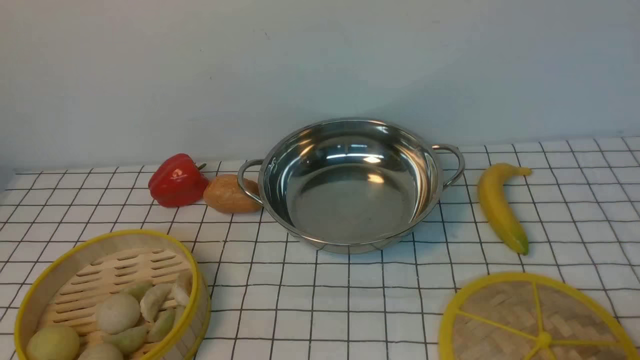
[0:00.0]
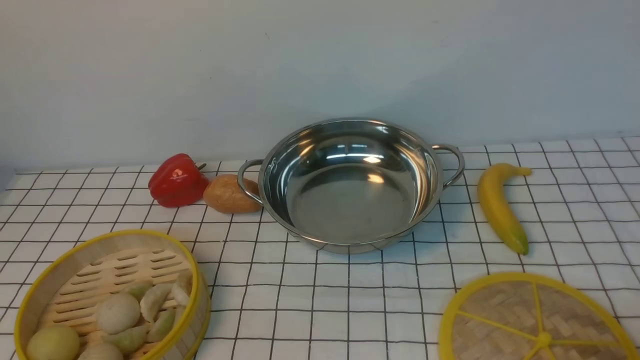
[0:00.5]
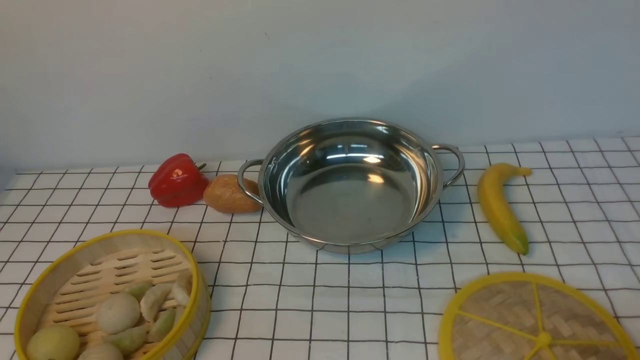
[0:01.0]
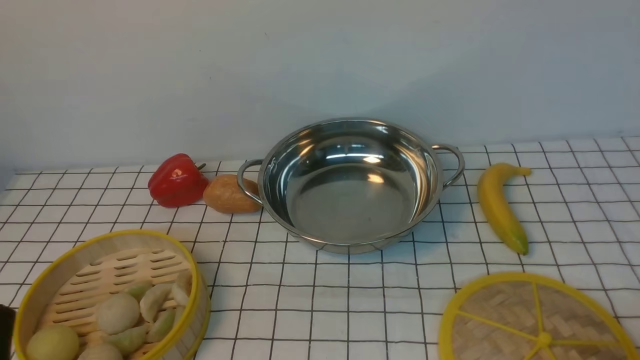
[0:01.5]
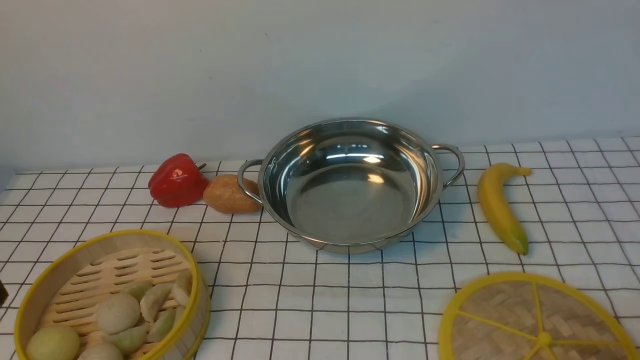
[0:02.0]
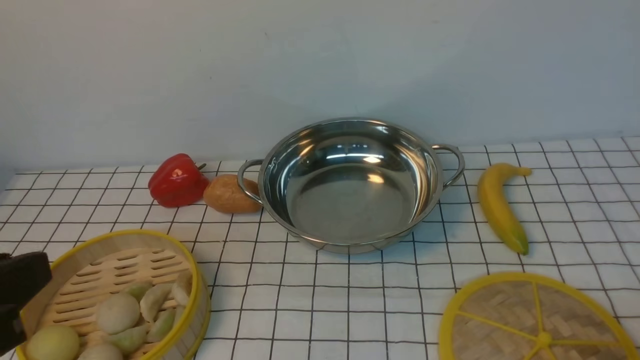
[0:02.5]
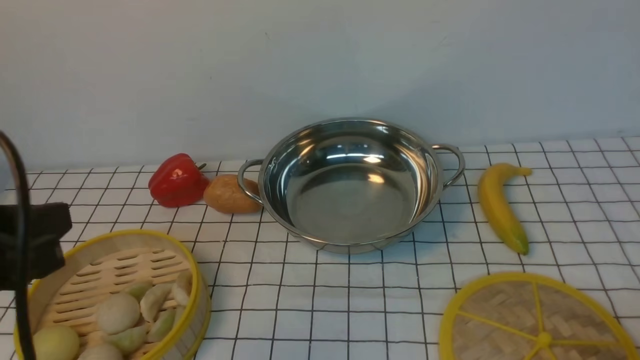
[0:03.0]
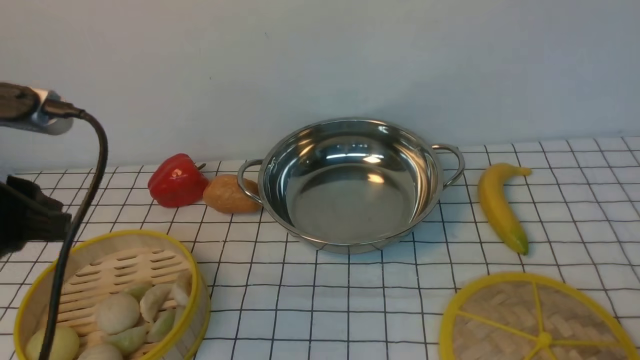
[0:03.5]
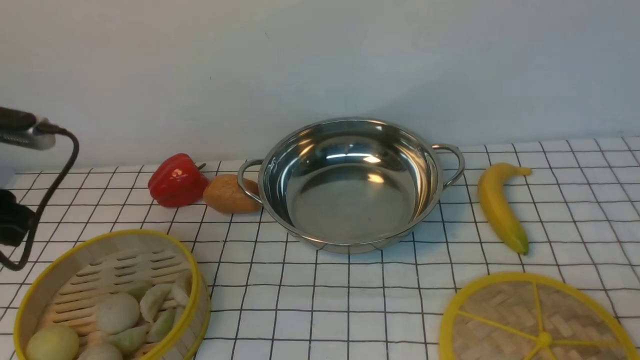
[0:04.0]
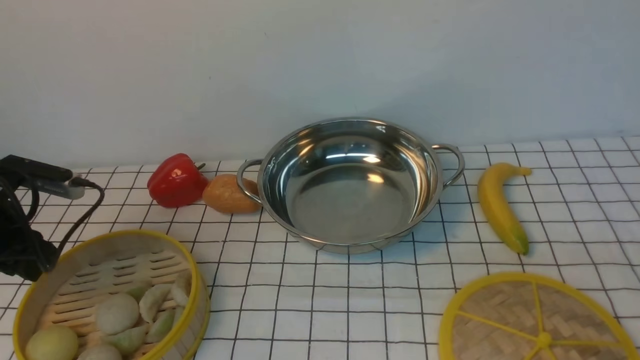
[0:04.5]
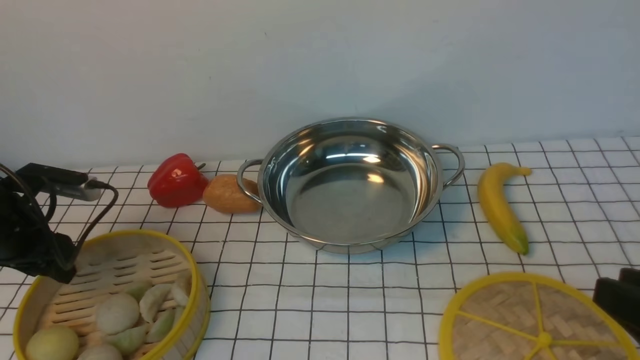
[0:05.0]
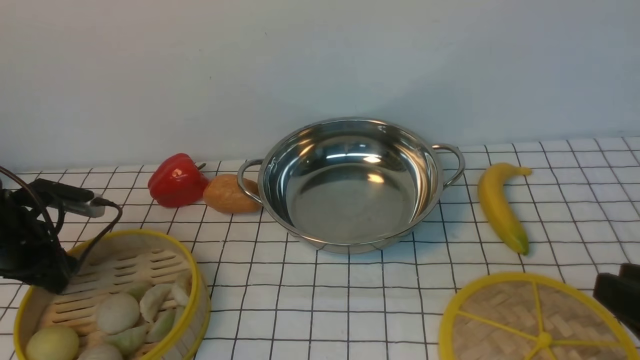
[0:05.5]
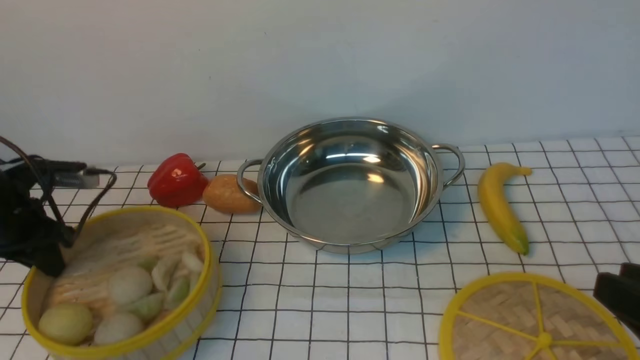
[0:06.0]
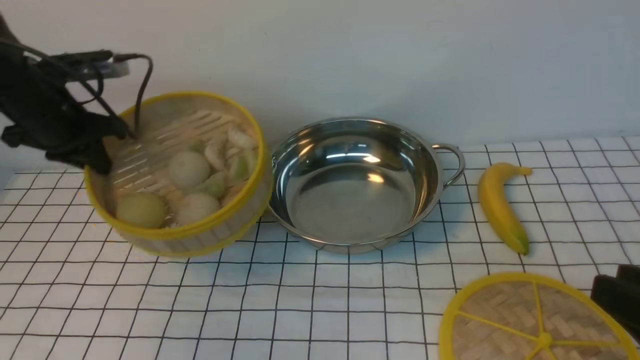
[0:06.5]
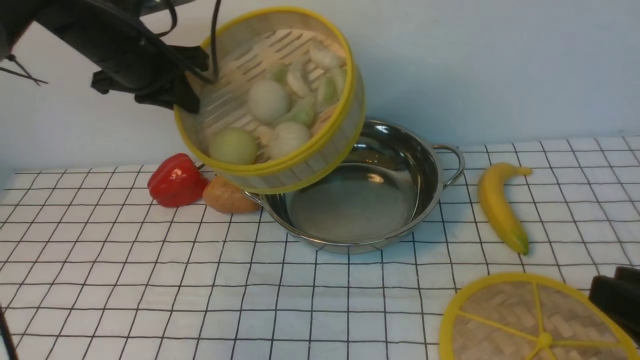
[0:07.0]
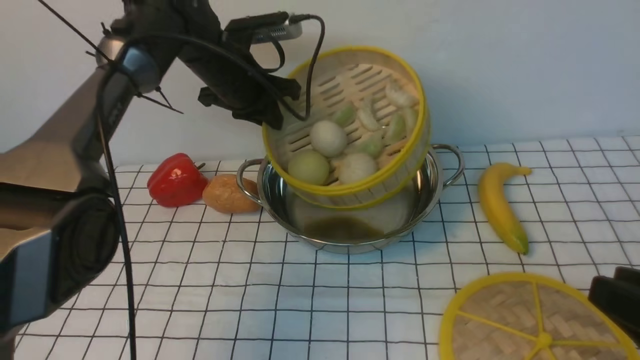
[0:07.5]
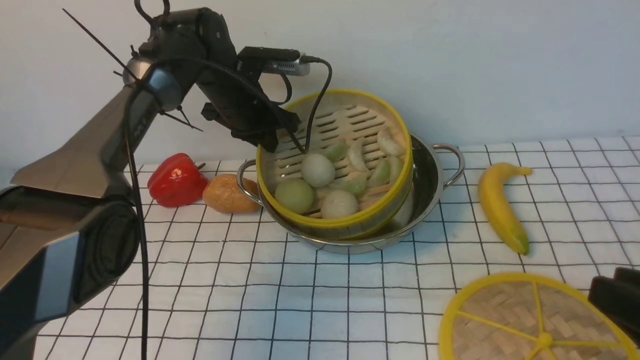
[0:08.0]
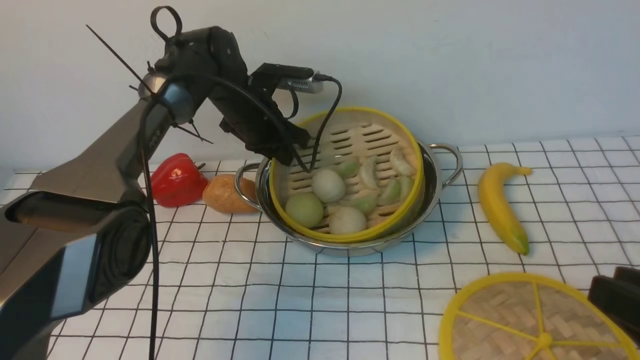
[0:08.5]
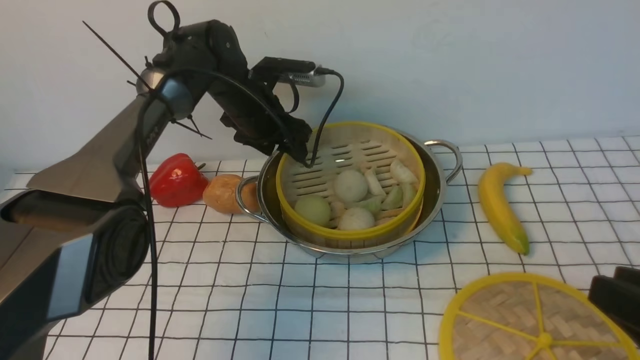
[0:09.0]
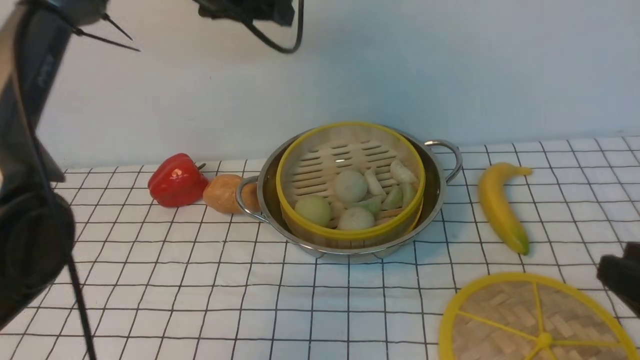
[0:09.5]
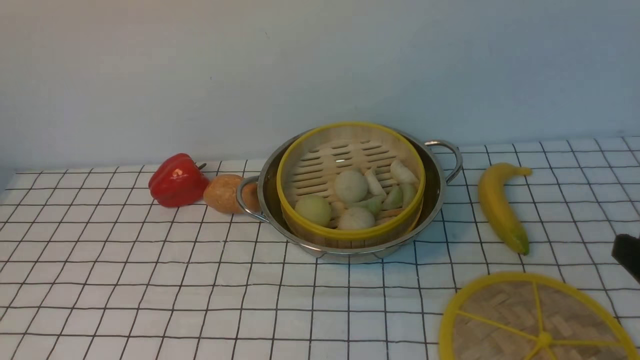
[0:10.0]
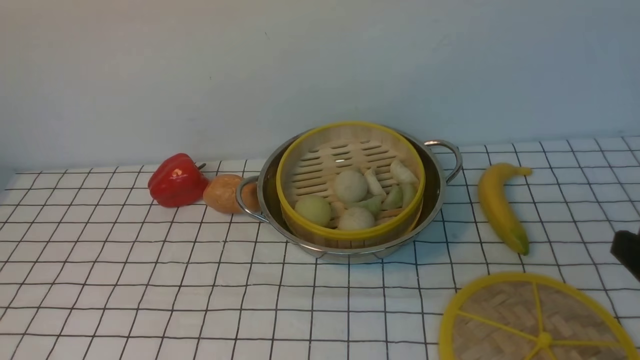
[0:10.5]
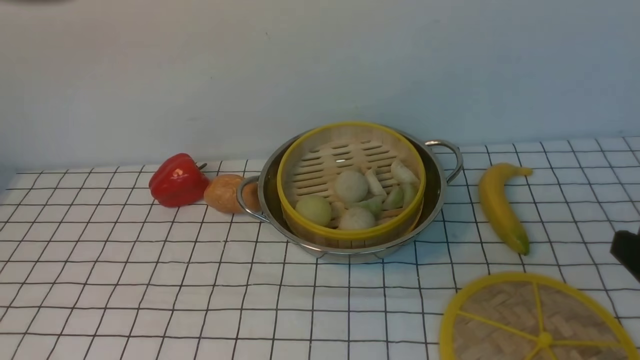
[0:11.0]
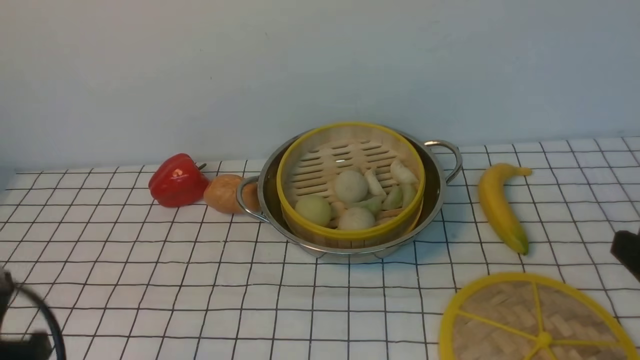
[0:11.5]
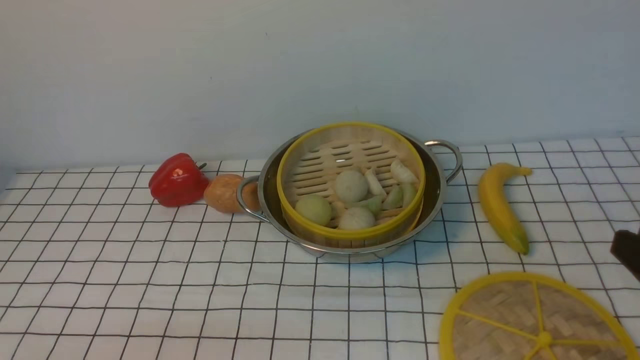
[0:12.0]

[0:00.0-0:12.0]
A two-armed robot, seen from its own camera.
Task of the whole recording: place the steamer in the pot on the white tablecloth, and put the lid on the steamer.
Step, 0:00.0 to 0:06.0: use the left arm to lift the steamer closest to it.
Step, 0:06.5 to 0:09.0: use the left arm to put the steamer into the iron steamer pot in the middle.
0:02.0 to 0:04.0: The left gripper is displaced forward and to the left by approximately 25 cm.
0:04.0 to 0:06.0: The left gripper shifts roughly 10 cm downward and forward, and closes. Meanwhile the right gripper shifts by some 5 cm.
0:06.0 to 0:08.0: The left gripper goes approximately 30 cm to the right and forward.
0:08.0 to 0:10.0: The left gripper heads upward and backward, covering about 40 cm, and opens, then closes again.

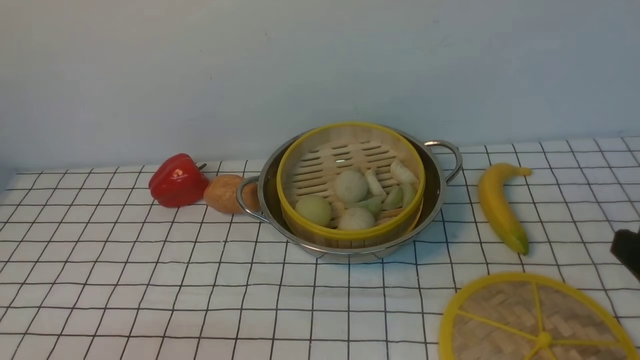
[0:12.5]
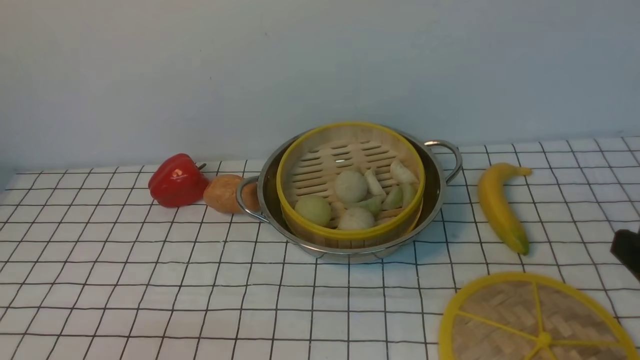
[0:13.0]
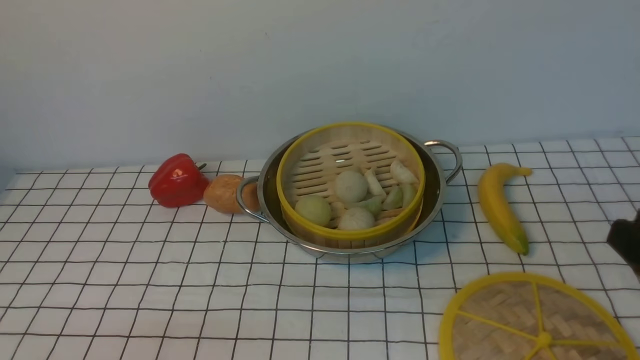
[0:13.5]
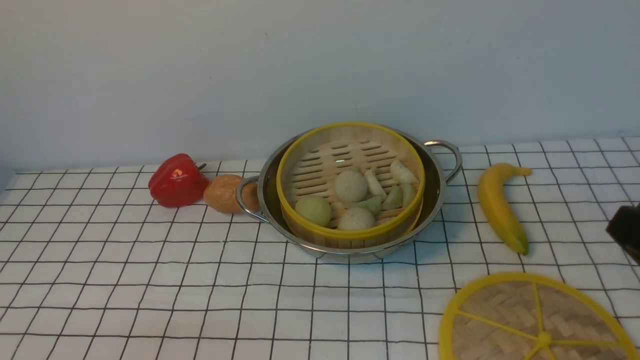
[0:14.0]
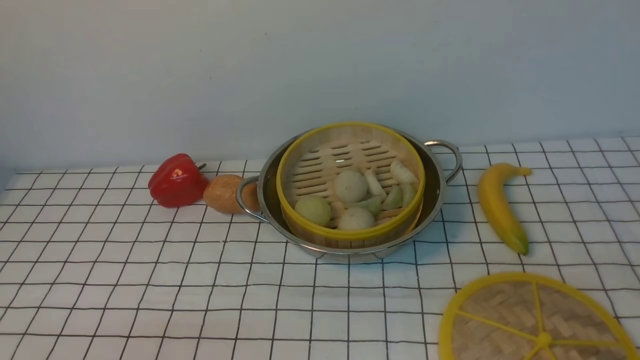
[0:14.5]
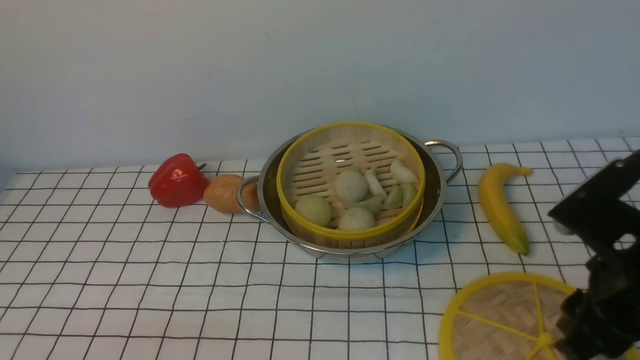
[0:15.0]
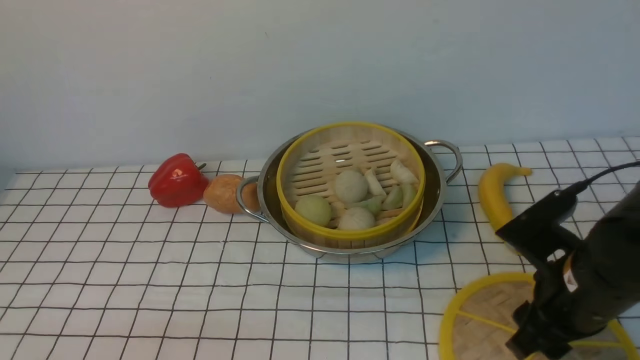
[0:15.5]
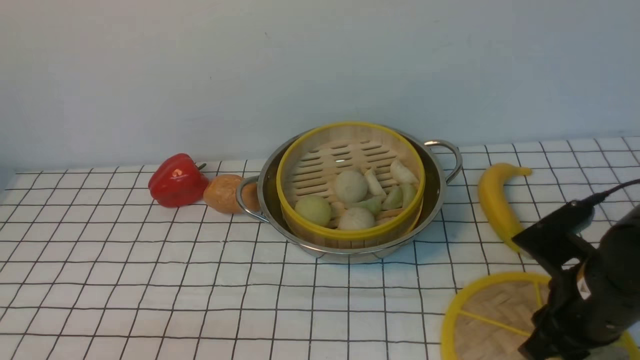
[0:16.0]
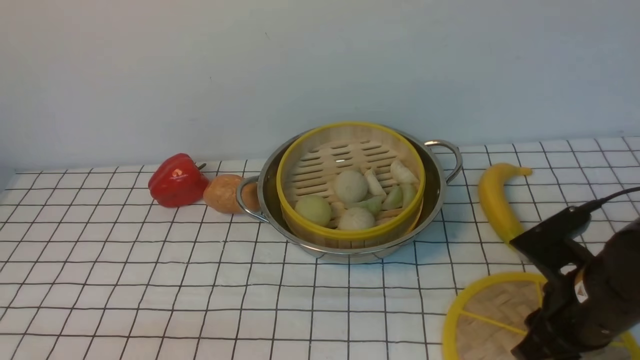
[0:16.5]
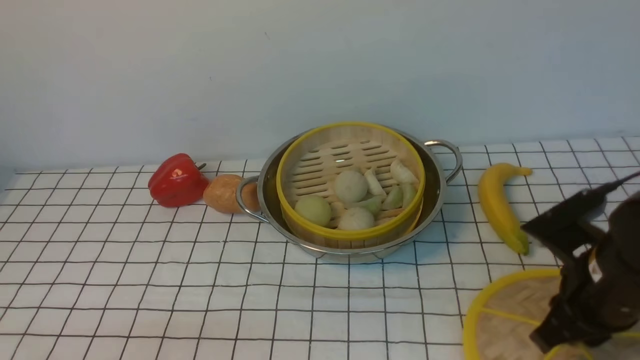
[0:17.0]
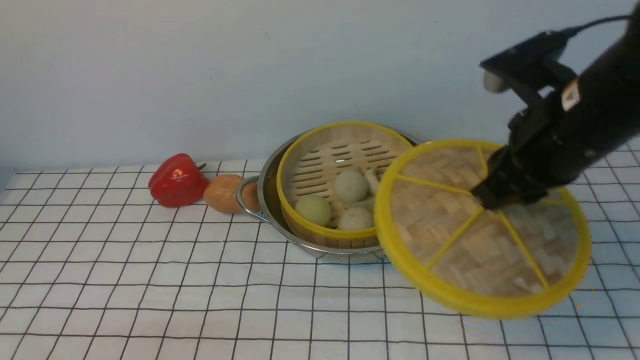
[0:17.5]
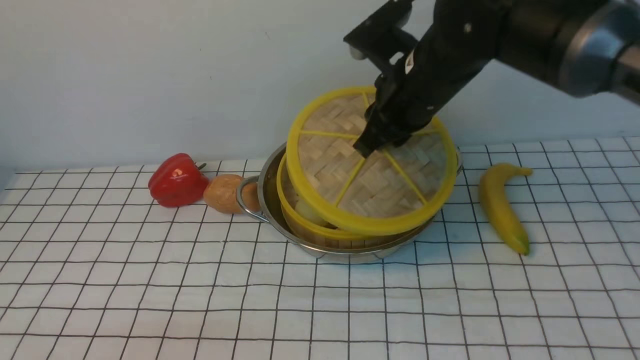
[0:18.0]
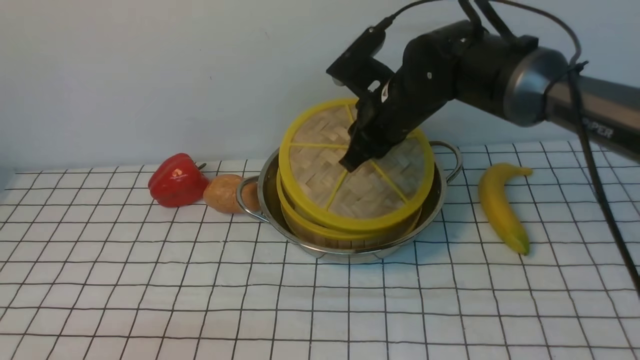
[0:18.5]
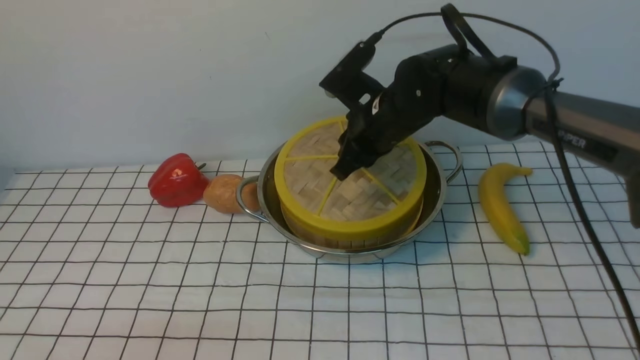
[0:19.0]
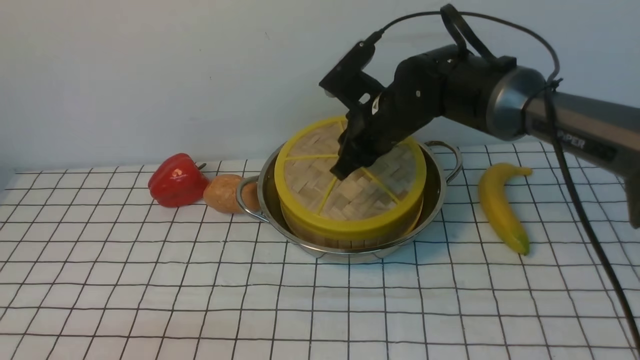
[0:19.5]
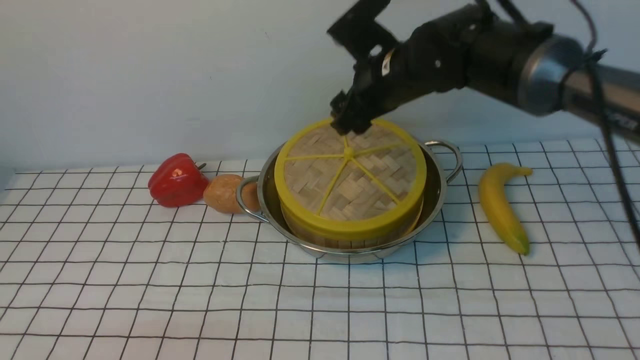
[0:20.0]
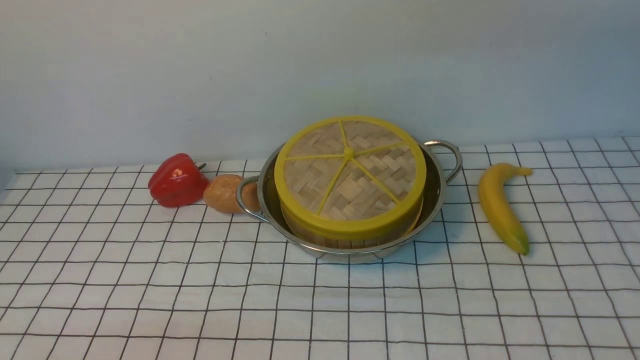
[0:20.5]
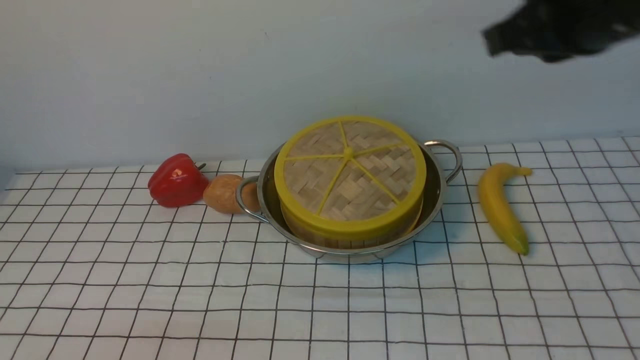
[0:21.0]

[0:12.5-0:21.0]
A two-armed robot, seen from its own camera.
Task of the whole recording: place the steamer in the pot on the white tablecloth, and put the lid on the steamer.
Step, 0:12.5 to 0:17.0: use the right arm to lift the lid of the steamer.
Step, 0:17.5 to 0:19.5: use the right arm to place the steamer lid on the steamer.
0:14.5 to 0:16.5: The right gripper goes some 15 cm forward, downward and to the left, and opens, then closes once more.
0:16.5 to 0:19.0: The right gripper travels forward and to the left by approximately 25 cm.
0:19.0 to 0:21.0: The right gripper heads upward, backward and to the right, covering roughly 30 cm, and opens, then closes again.
